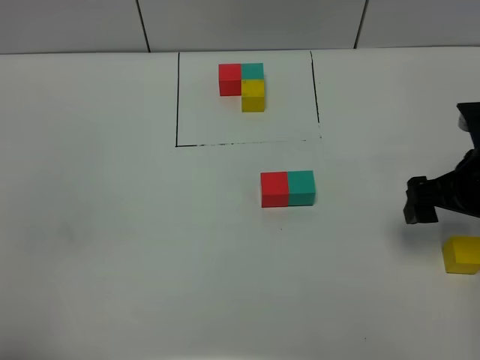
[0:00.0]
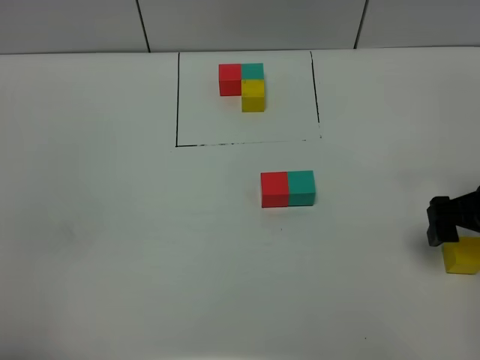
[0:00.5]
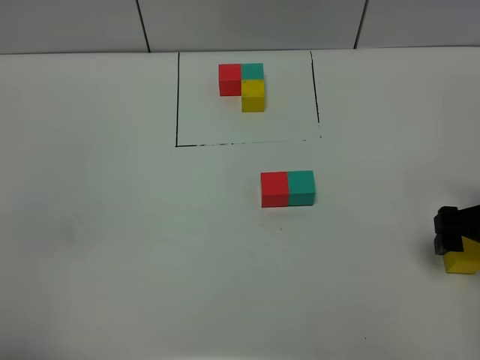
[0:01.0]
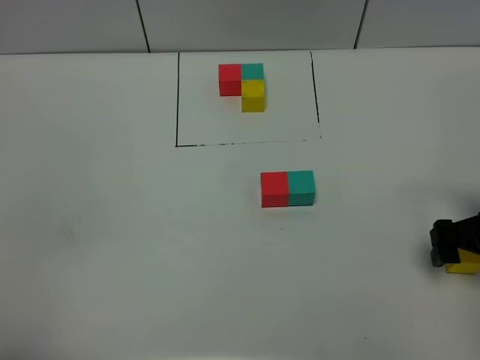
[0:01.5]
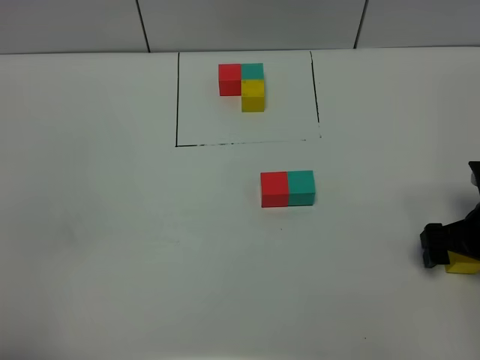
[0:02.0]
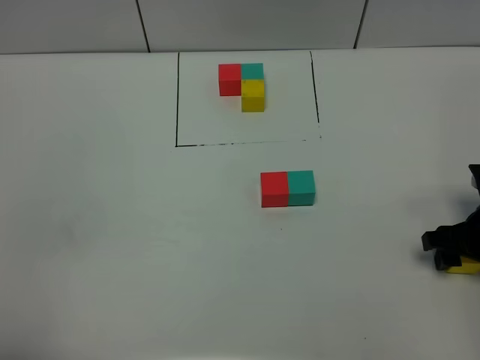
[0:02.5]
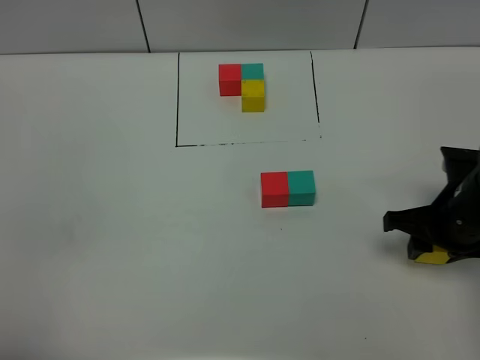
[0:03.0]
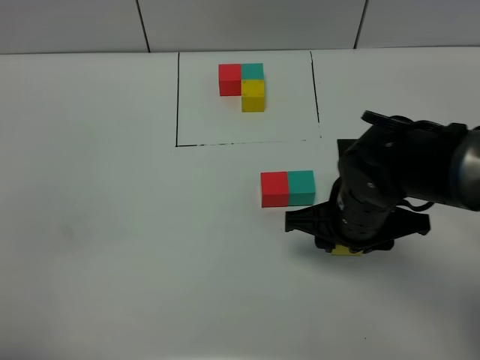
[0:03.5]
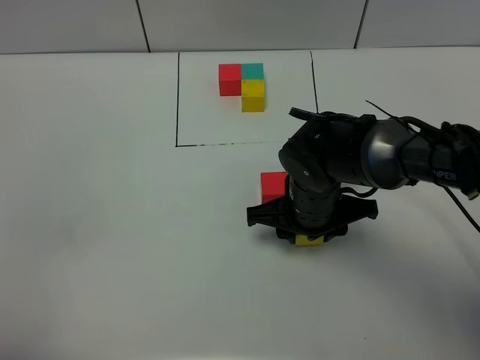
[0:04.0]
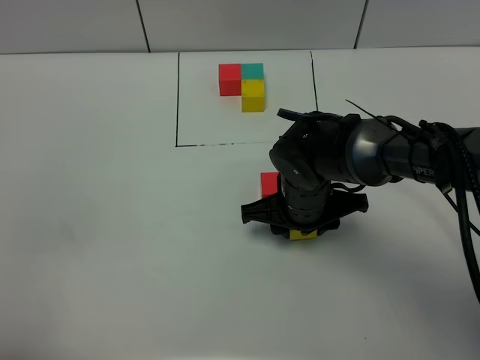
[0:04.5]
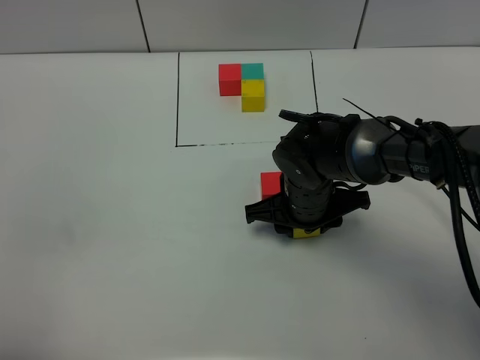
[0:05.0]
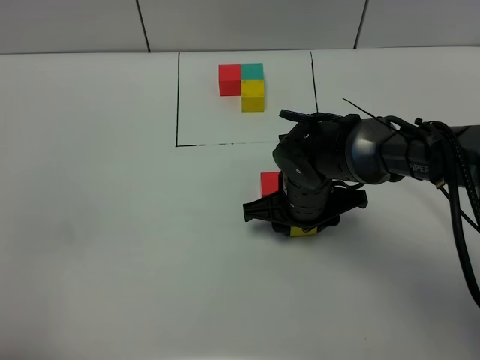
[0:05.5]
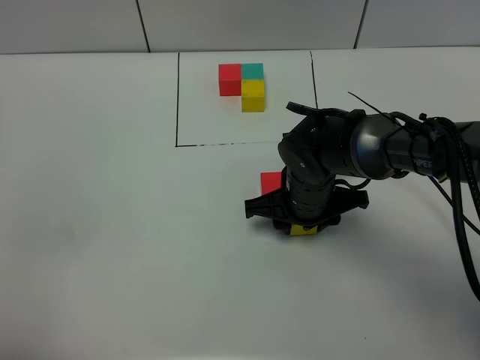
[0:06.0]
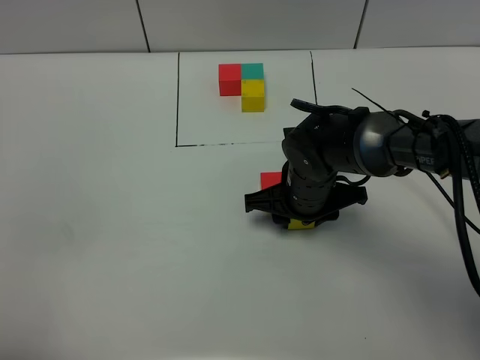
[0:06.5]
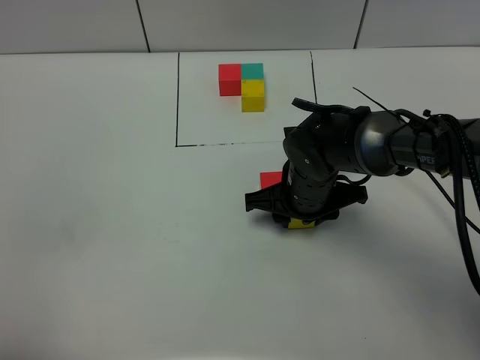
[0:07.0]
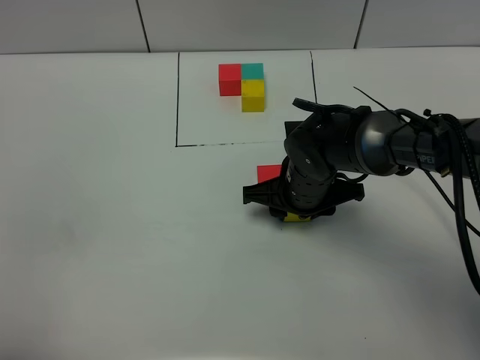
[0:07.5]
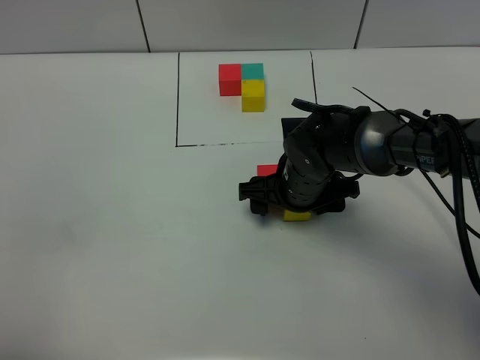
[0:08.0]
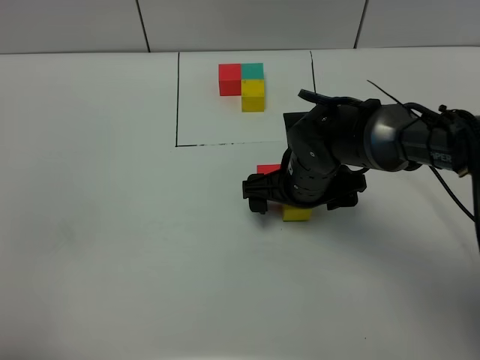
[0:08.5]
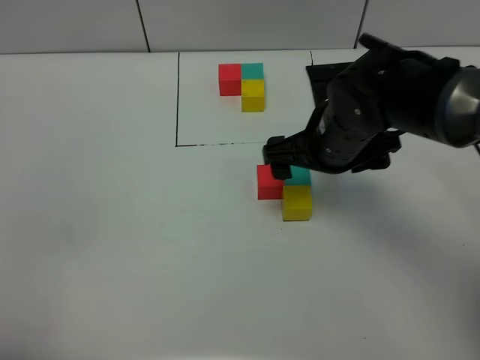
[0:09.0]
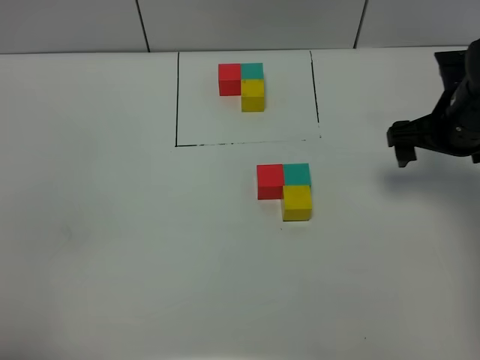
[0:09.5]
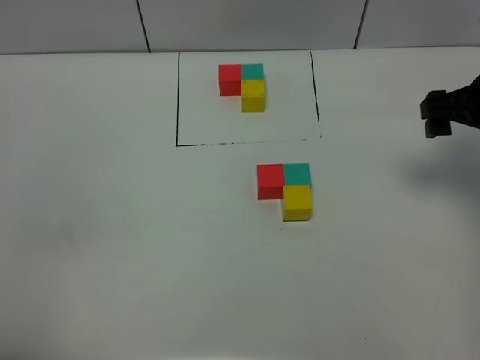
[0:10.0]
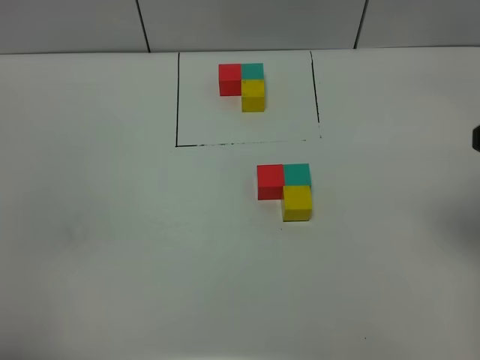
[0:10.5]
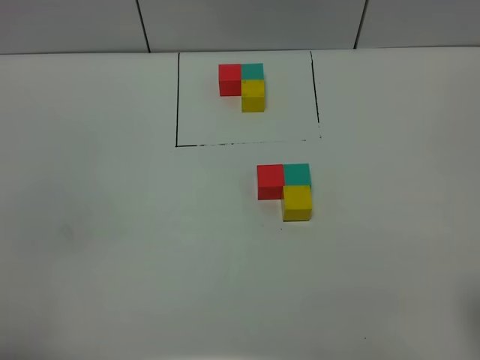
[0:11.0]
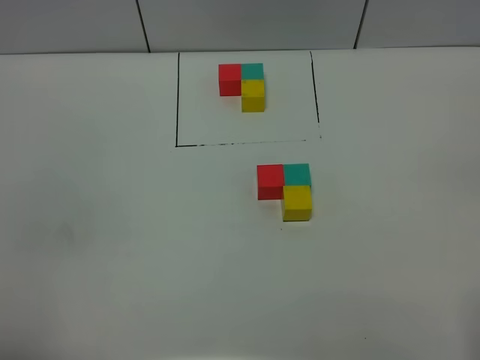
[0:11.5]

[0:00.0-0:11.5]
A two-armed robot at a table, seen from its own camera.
Task of the whole recording: According to the building block template in front, assemble the scattered blocks together.
Step, 0:00.0 to 0:08.0: Put the yellow build block on the behind of the green build block.
0:00.0 to 0:02.0: The right gripper heads downward, covering approximately 10 cm.
0:02.0 to 0:04.0: The right gripper shifts roughly 25 cm to the left, and closes its fingers.
0:04.0 to 0:07.5: The grippers make only small movements.
0:07.5 to 0:09.5: The right gripper goes some 20 cm to the right and upward, and opens its fingers.
0:09.5 to 0:11.5: The right gripper travels backward by about 35 cm.

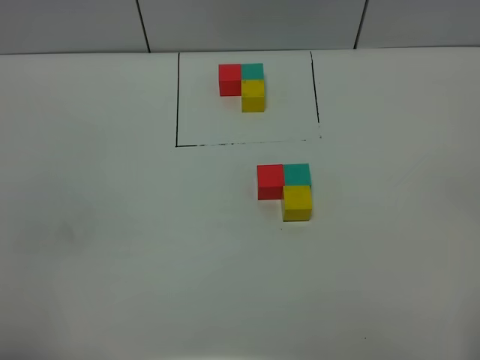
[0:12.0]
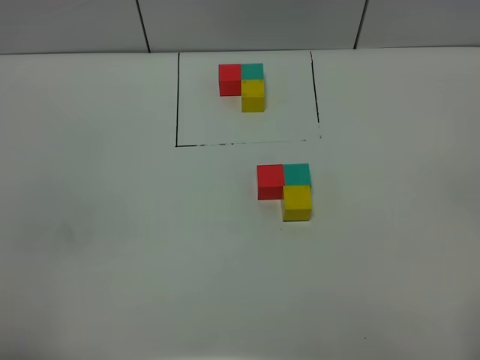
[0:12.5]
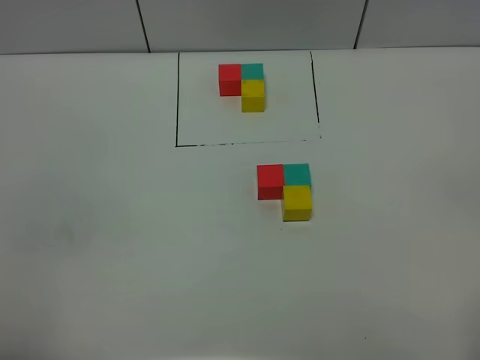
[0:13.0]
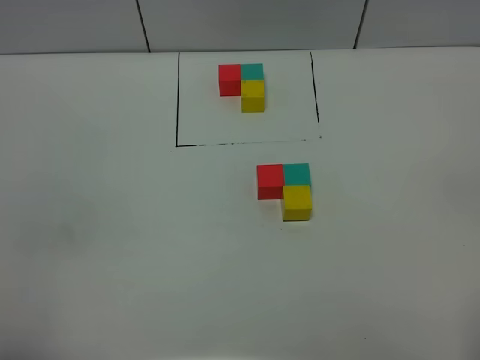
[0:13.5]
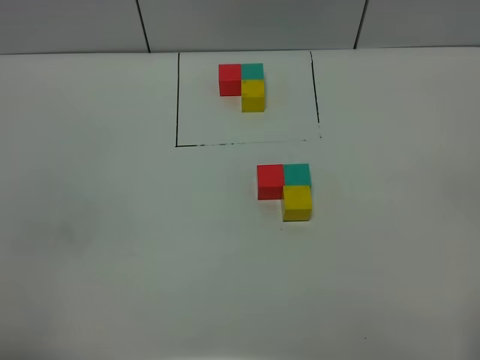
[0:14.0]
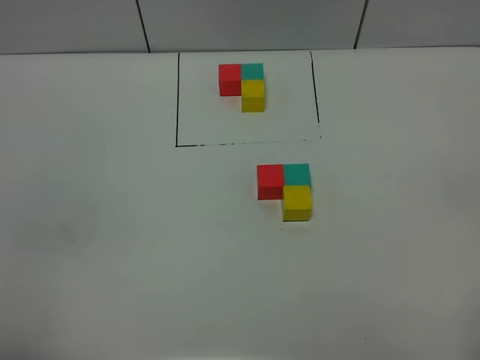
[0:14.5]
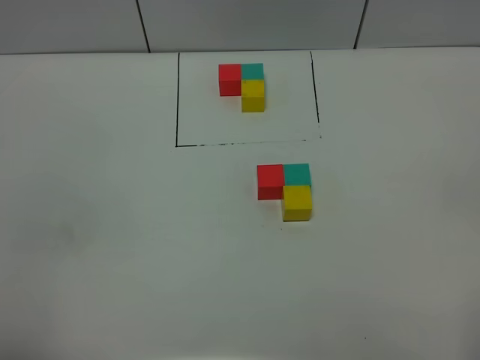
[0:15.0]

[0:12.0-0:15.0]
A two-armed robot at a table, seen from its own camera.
Task of the whole recording: According to the building block template in front, assemble the scattered blocks together.
0:12.0 to 0:15.0: Both grippers stay about where they are.
